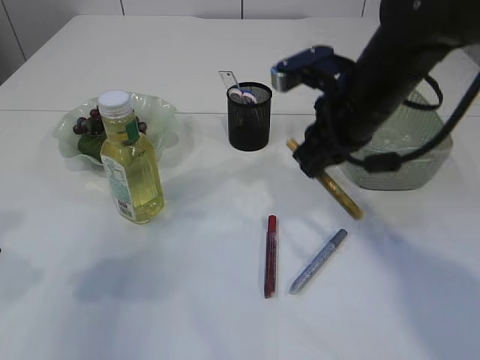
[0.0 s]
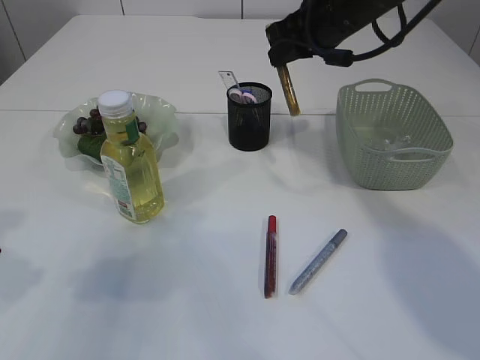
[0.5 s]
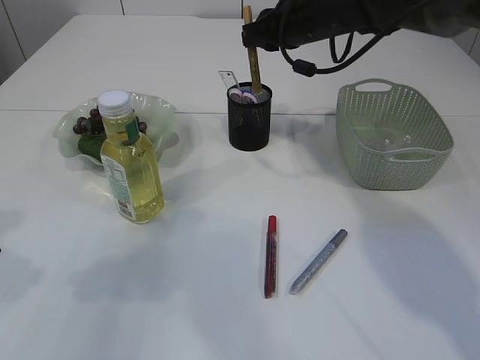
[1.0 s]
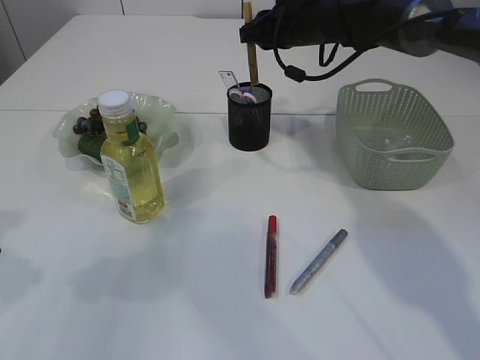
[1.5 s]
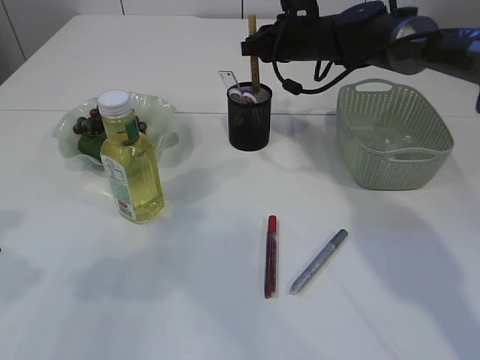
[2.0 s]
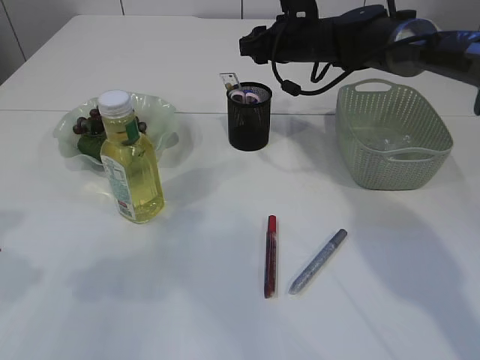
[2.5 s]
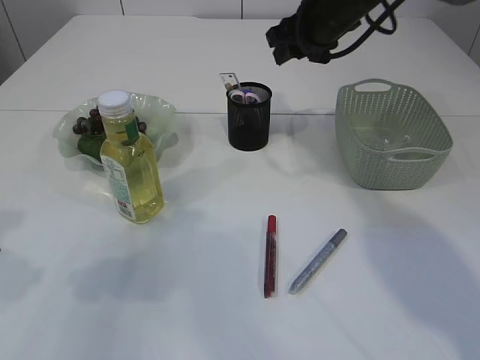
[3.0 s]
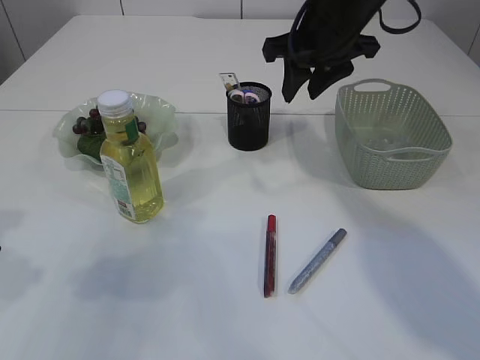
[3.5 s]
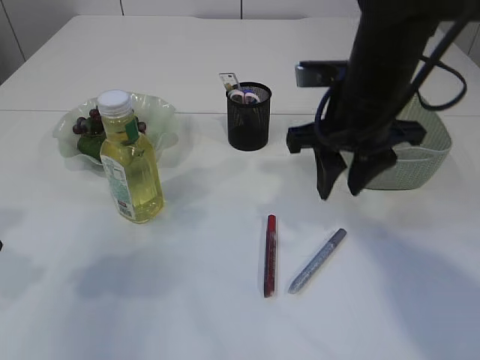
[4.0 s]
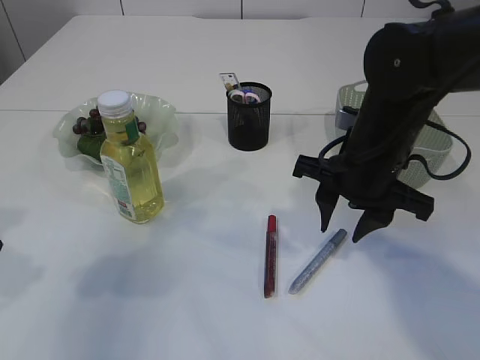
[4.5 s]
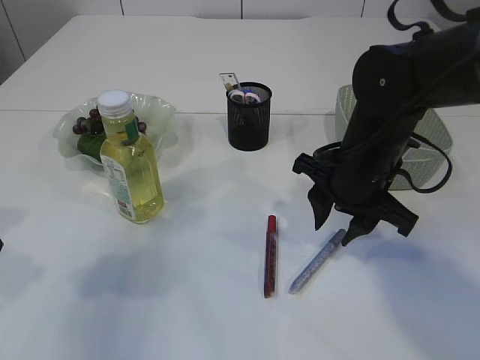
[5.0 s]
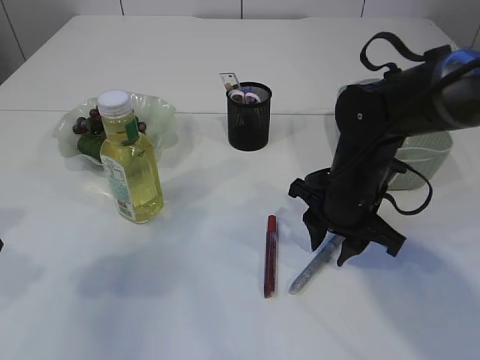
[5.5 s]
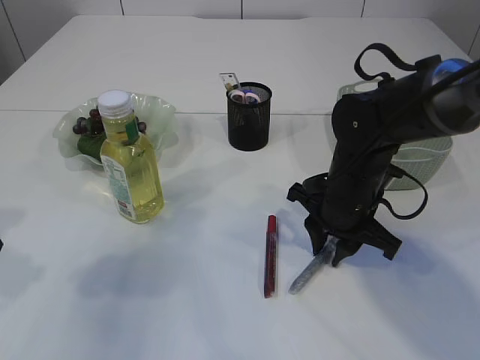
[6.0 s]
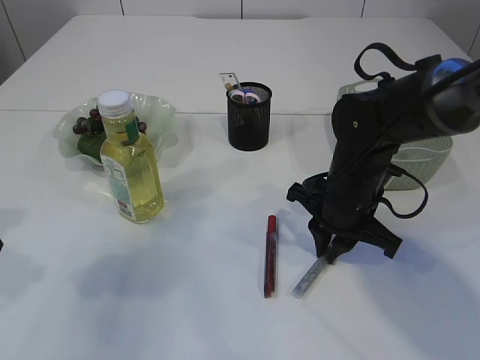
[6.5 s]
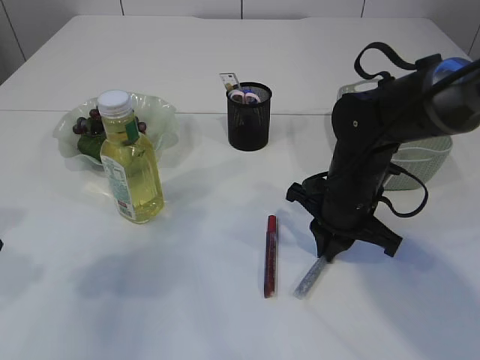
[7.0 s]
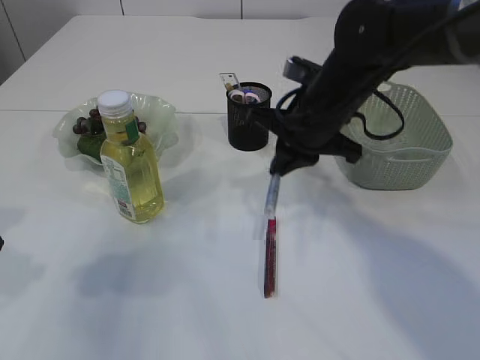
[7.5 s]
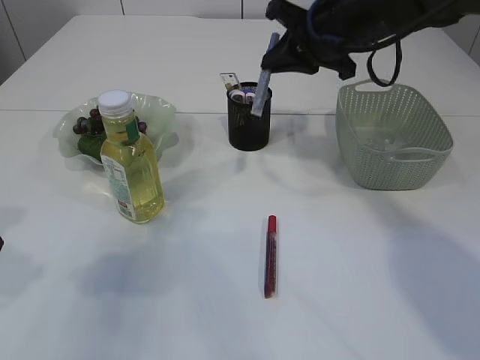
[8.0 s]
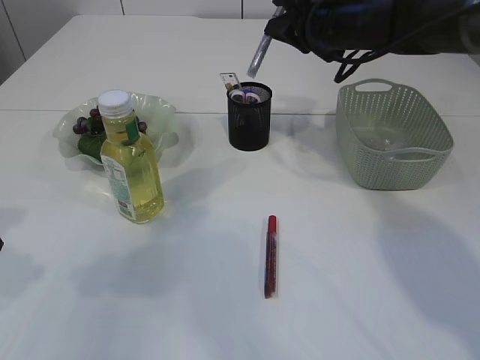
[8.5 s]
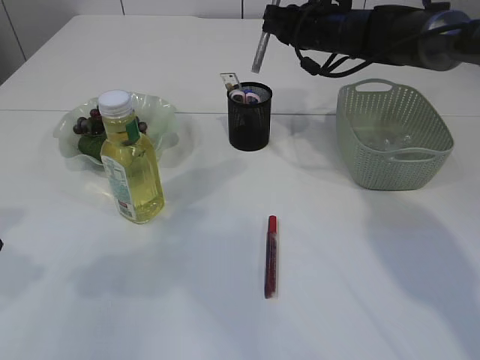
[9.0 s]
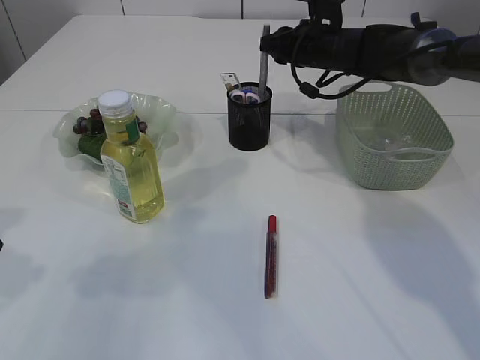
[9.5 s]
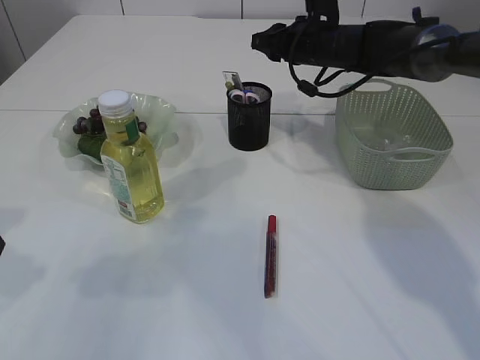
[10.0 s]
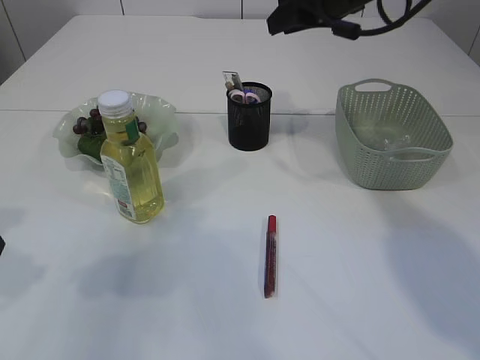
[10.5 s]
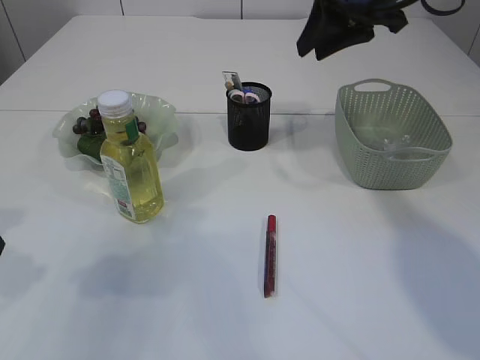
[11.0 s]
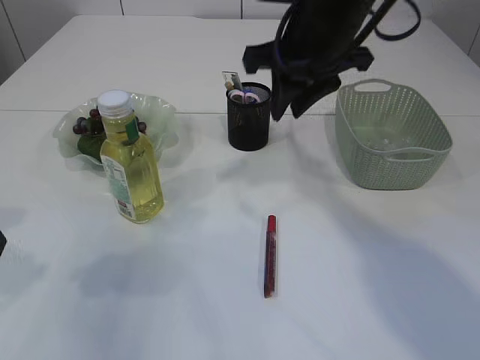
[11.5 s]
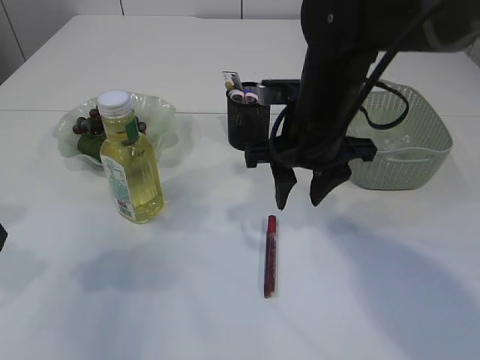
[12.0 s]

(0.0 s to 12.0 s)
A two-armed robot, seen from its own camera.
Step, 0.0 s - 2.0 s: place the yellow glue into the pen holder.
Step, 2.5 s - 7.0 s: pick up the silver glue.
Step, 7.5 s - 10.0 s: place the silver glue into the pen holder.
0.0 s - 2.0 s: The right gripper goes approximately 20 cm forward.
2.0 s - 4.0 s: The right gripper moves backward, about 20 cm, and opens up.
4.0 s - 6.0 s: The right gripper travels downward by roughly 15 cm.
6.0 s - 8.0 s: The right gripper is displaced upward and forward by about 20 cm, and closes.
8.0 s - 10.0 s: The right gripper is displaced forward and downward by some 10 cm, and opens.
10.0 s - 12.0 s: The right gripper moves backward, some 20 cm.

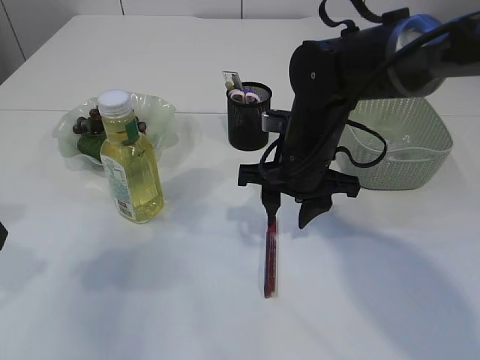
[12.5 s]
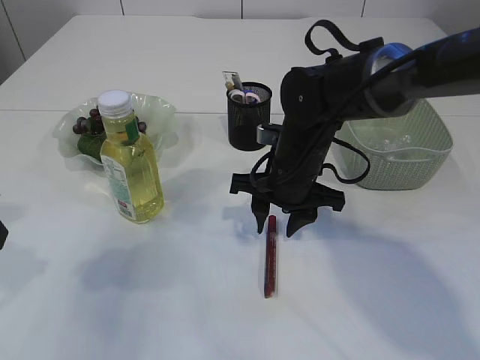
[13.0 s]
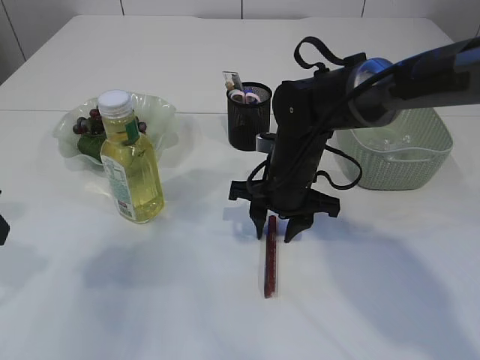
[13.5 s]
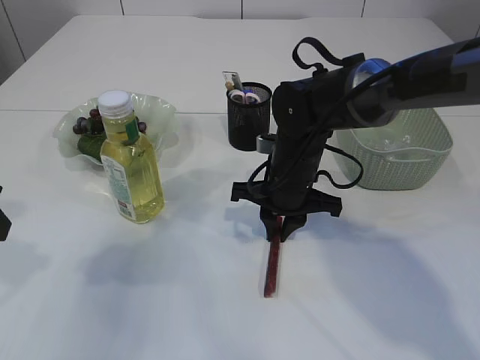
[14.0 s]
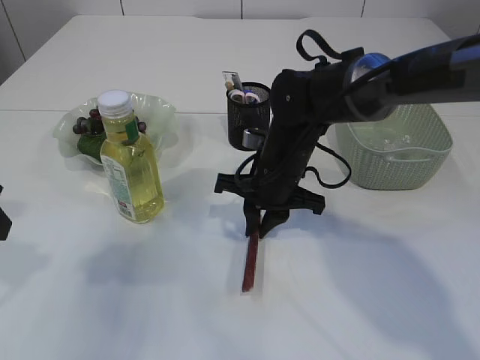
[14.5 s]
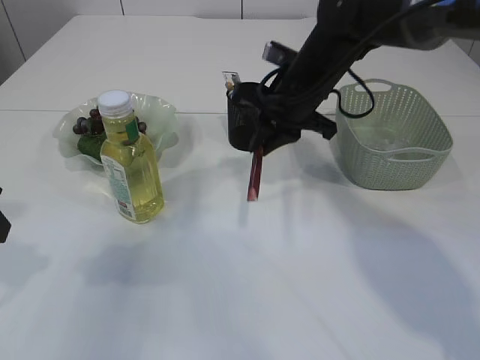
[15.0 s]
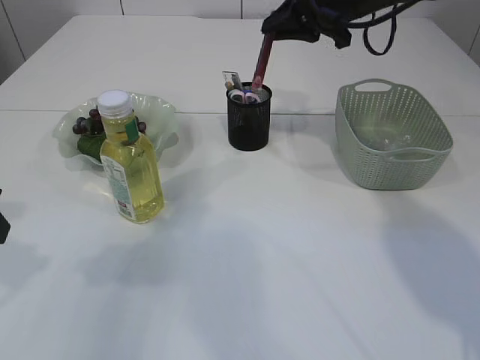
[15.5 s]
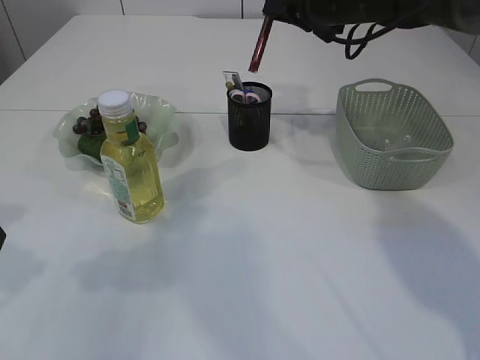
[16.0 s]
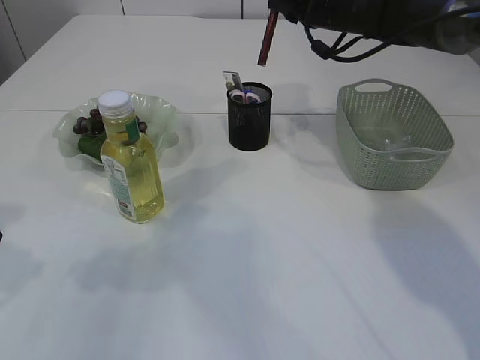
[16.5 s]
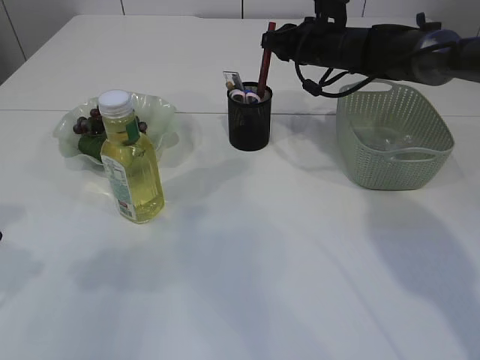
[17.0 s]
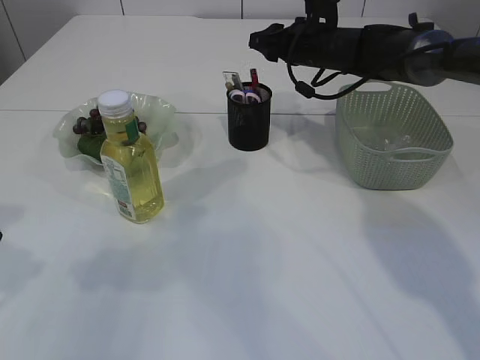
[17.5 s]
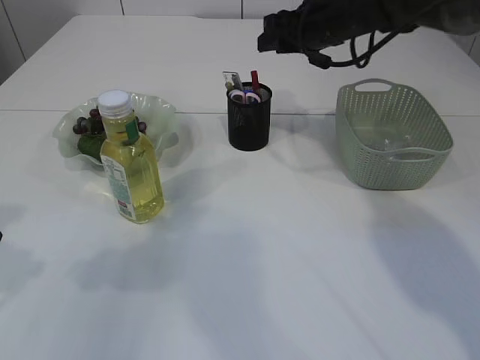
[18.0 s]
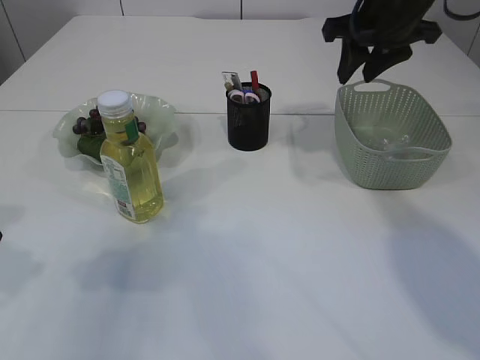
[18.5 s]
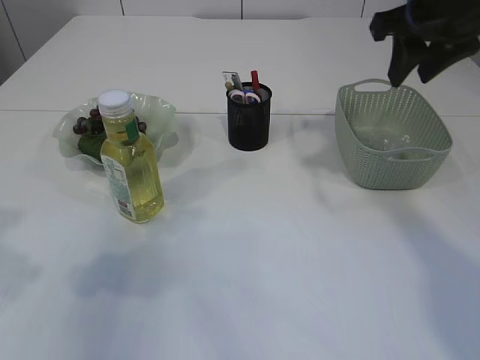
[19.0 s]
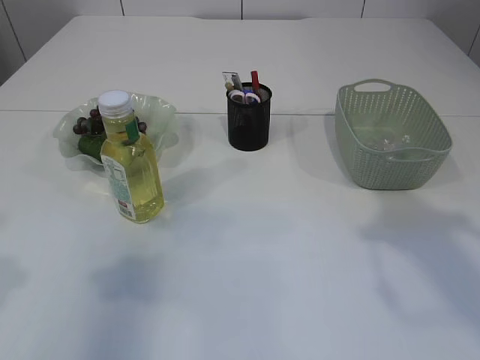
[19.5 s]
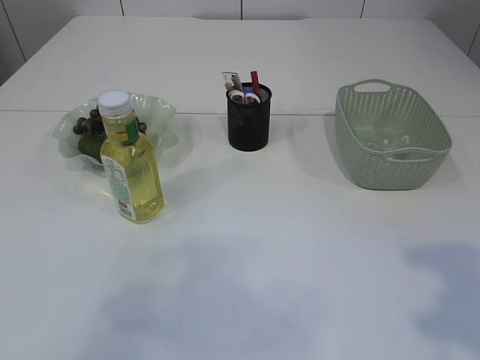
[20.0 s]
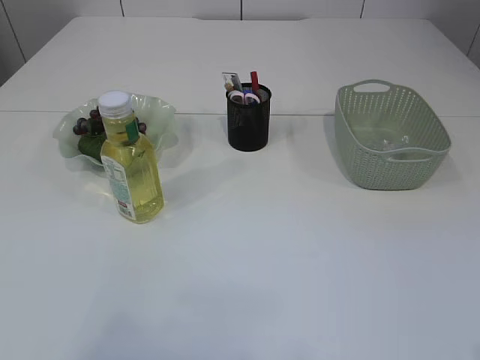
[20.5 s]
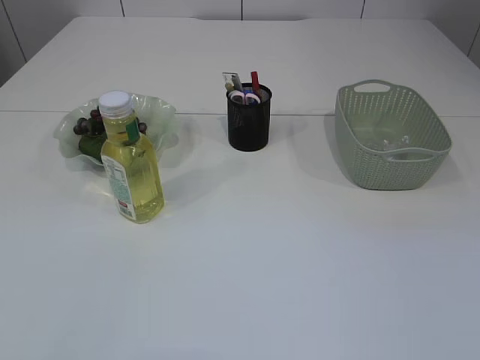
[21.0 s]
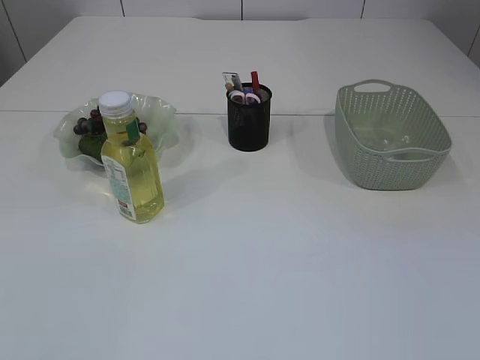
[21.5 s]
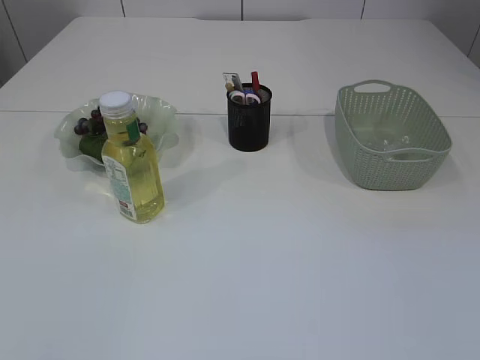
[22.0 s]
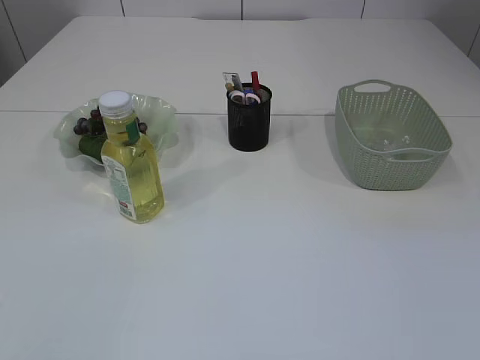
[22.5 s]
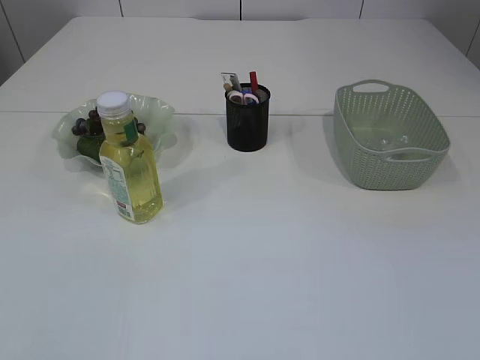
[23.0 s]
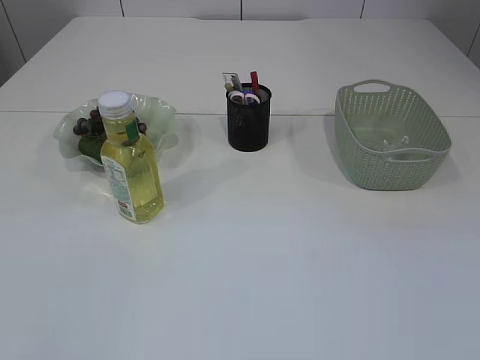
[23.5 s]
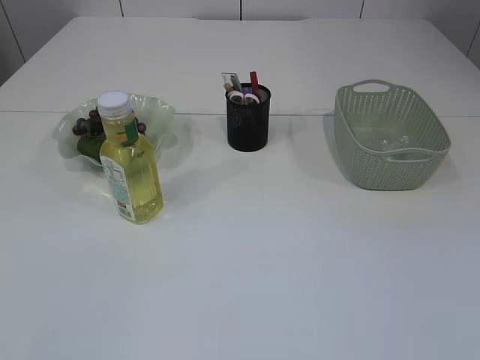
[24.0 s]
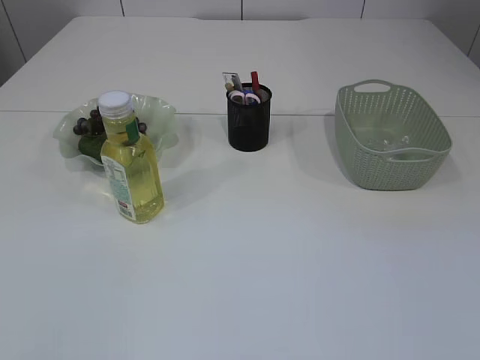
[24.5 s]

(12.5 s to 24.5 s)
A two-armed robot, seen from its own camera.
Step, 12.5 s - 14.5 s: pick up the red glue.
Step, 15.0 s - 18.0 s: place the red glue into the pen holder.
12.5 s - 14.5 s: The right gripper shifts by some 5 cm, and closes.
14.5 s - 16.5 s: The right gripper goes roughly 25 cm forward, upward and to the right.
16.5 s - 18.5 s: The right gripper moves backward, some 10 cm, and opens up.
18.5 s - 20.5 s: The left gripper shifts approximately 20 cm backward and upward. The right gripper moves backward, roughly 40 cm.

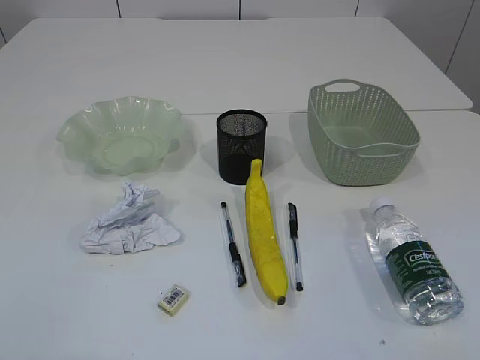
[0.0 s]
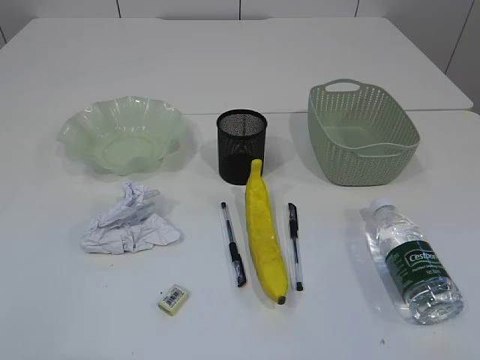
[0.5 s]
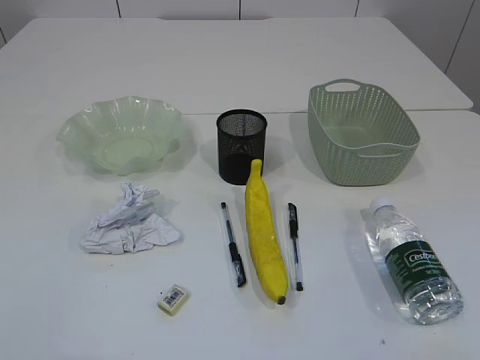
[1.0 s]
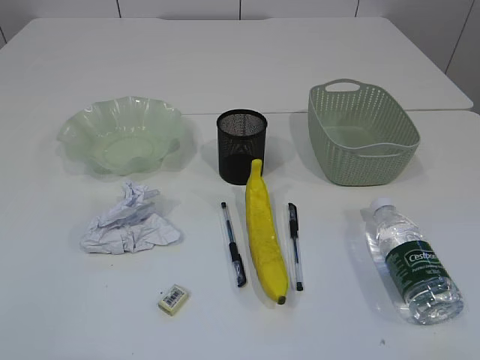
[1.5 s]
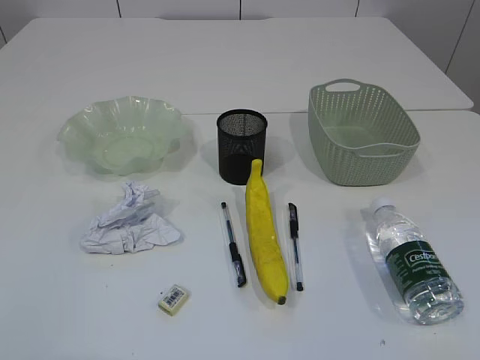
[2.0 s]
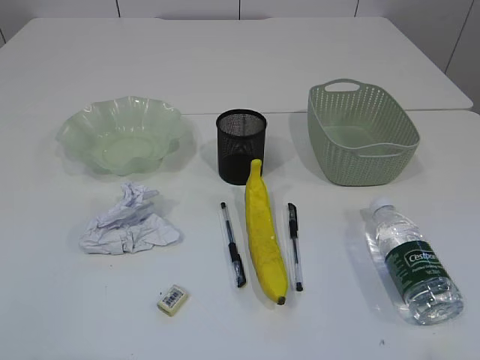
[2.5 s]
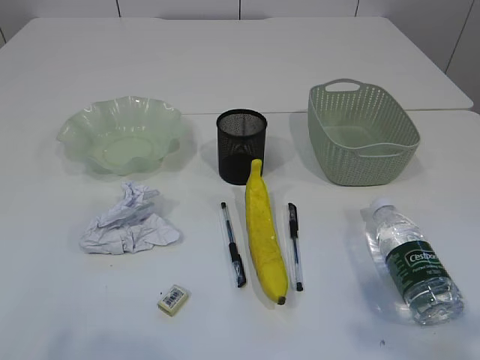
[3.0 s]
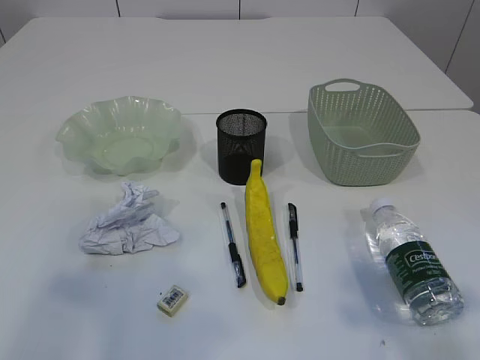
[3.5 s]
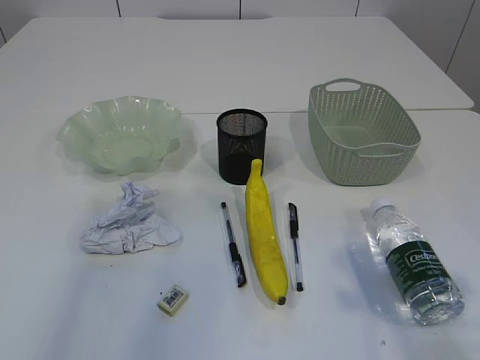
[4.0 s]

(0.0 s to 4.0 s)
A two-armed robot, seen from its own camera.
2.0 s - 4.0 s: The right gripper heads forward, covering roughly 15 cm; the left gripper goes about 25 cm forward and upward, and opens its fingers.
